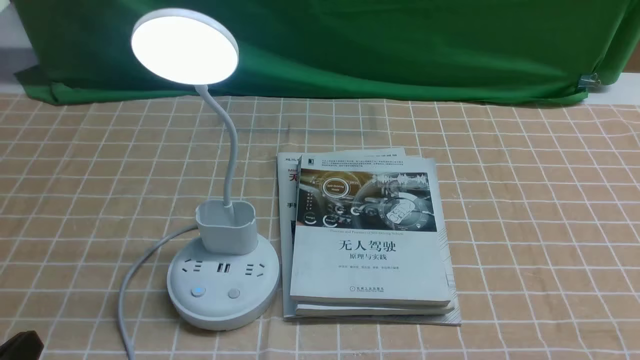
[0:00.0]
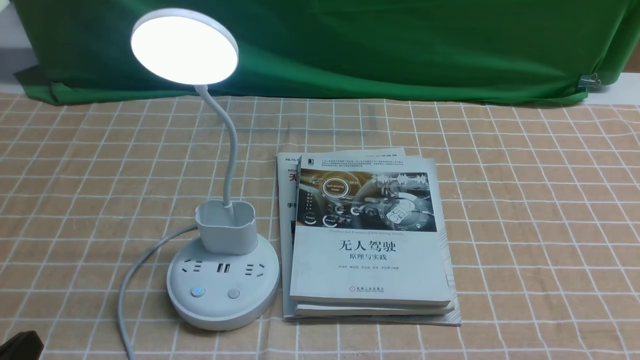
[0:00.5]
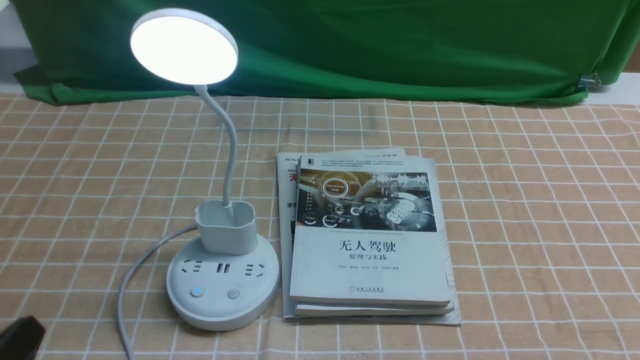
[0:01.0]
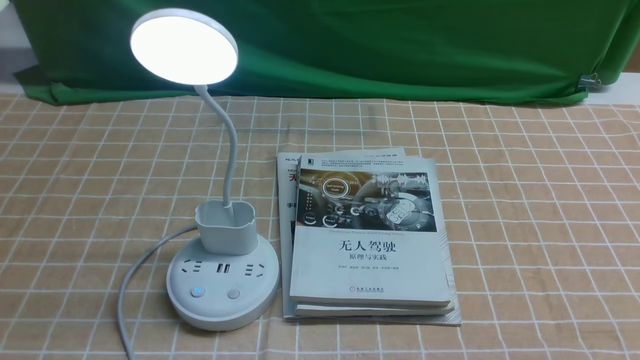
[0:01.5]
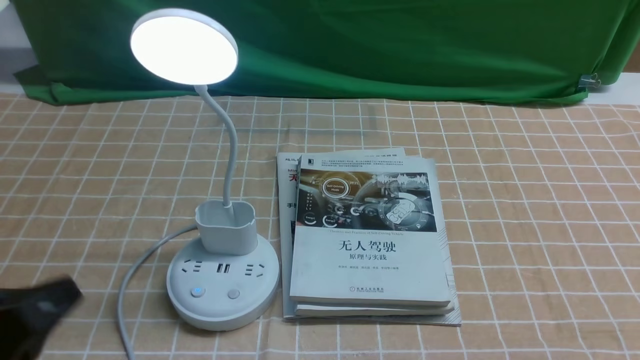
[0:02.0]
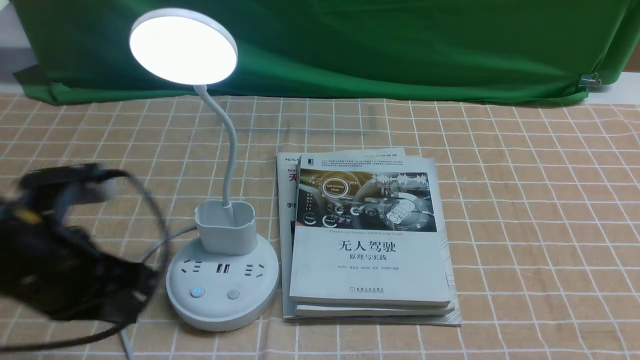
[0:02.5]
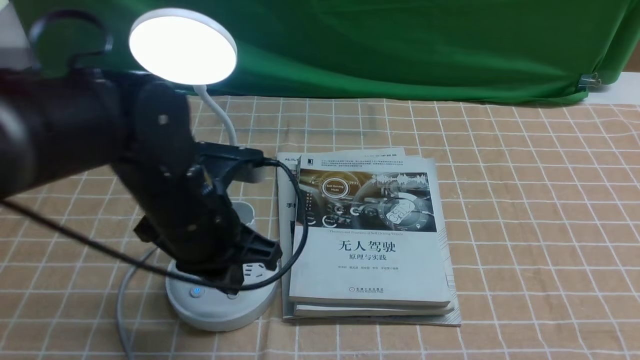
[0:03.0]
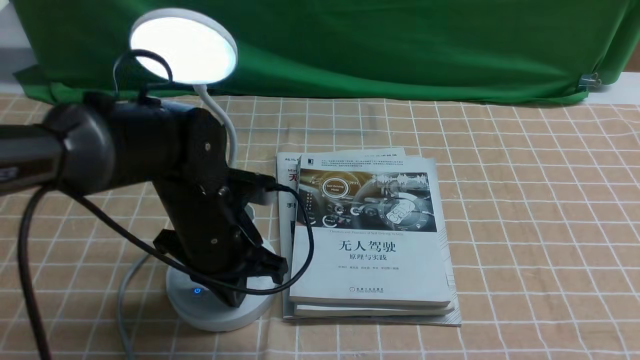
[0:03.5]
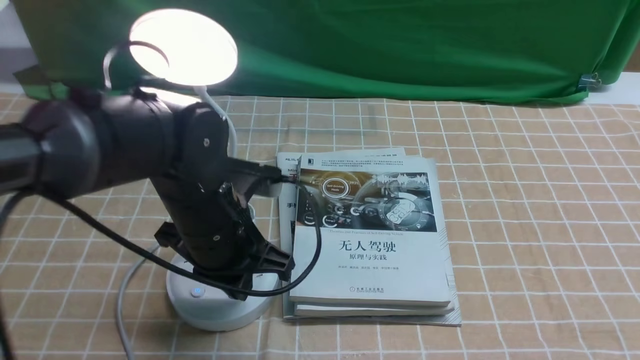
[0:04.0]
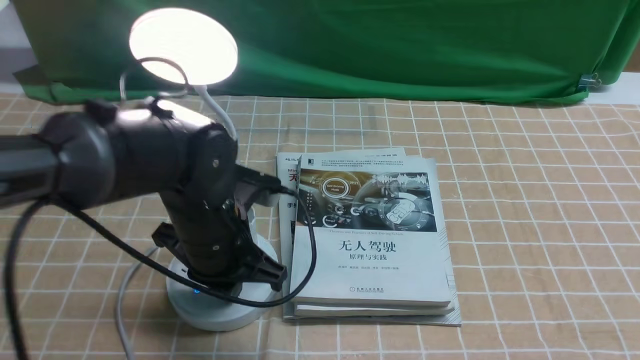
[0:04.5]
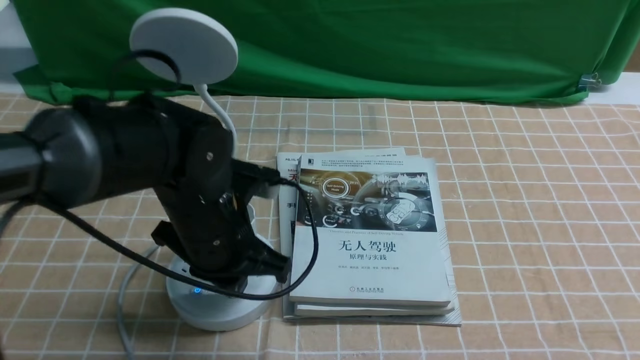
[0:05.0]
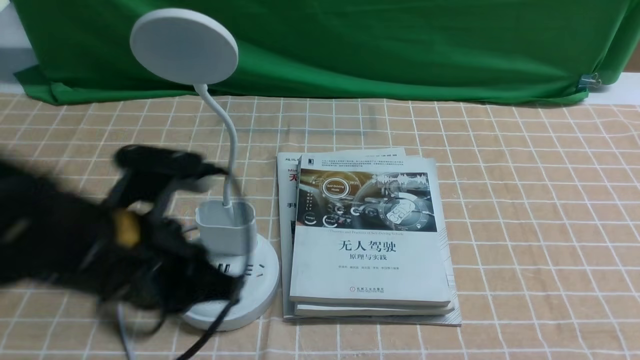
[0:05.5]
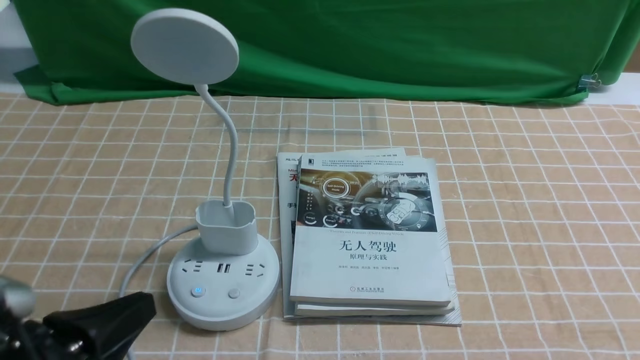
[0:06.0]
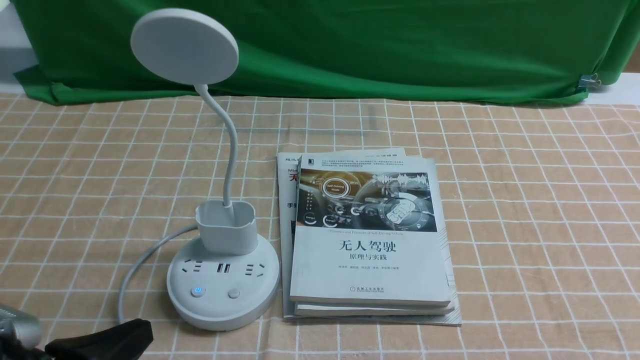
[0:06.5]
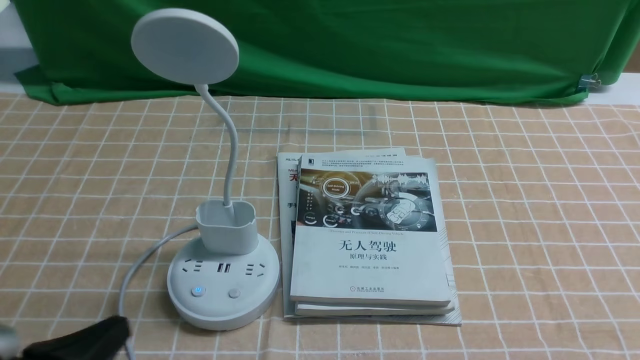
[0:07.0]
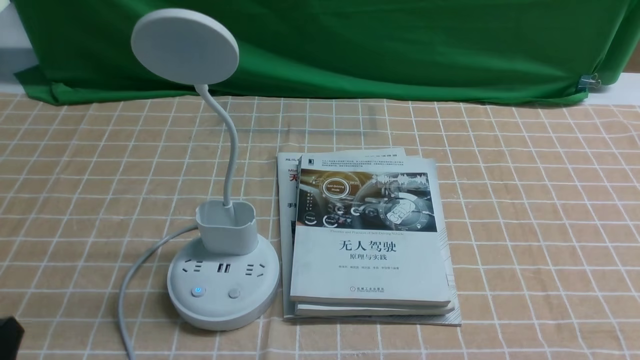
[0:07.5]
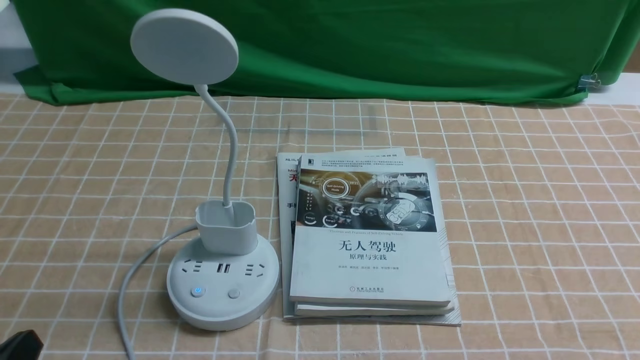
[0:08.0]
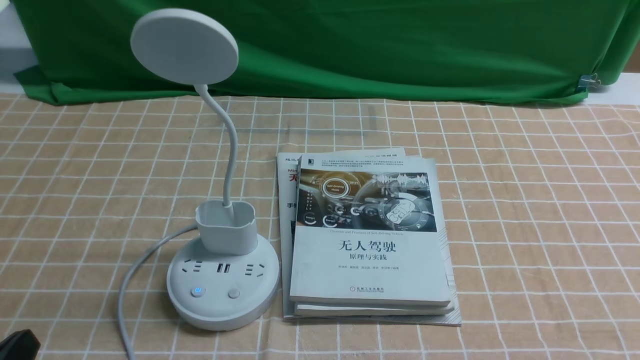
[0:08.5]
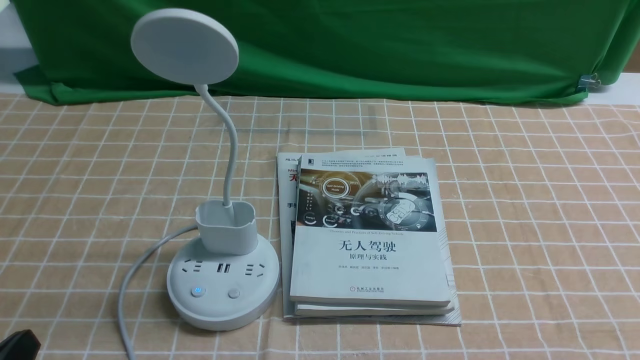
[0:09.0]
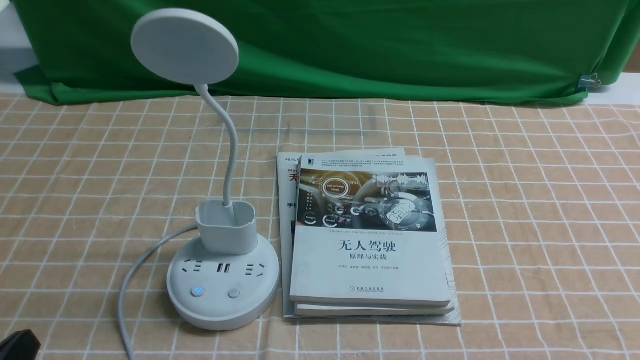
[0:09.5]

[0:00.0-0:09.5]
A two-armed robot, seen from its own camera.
Task of the whole recording: turn off the desk lamp on the light coffee tablecloth by hand.
Step, 0:00.0 to 0:05.0: use the left arm to press the button switch on the lamp holder.
0:02.0 to 0:04.0: The left gripper is displaced forward and to the right by about 25 cm, and closes its fingers.
0:04.0 to 0:05.5: The left gripper is displaced backward and upward by about 10 cm.
0:05.5 to 0:07.5: The left gripper heads backward, to the left and downward, covering about 20 cm.
0:07.5 to 0:09.5: Both grippers stay about where they are.

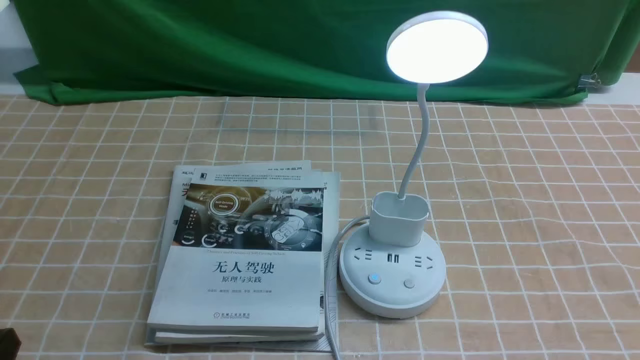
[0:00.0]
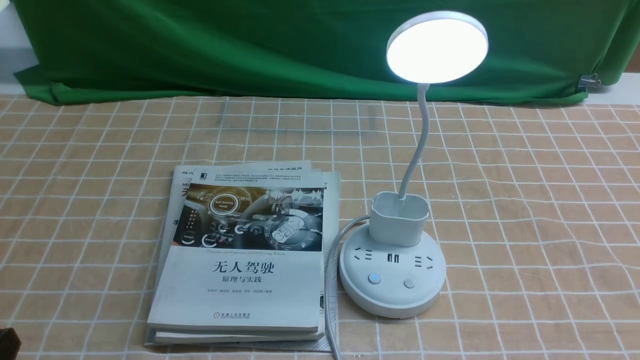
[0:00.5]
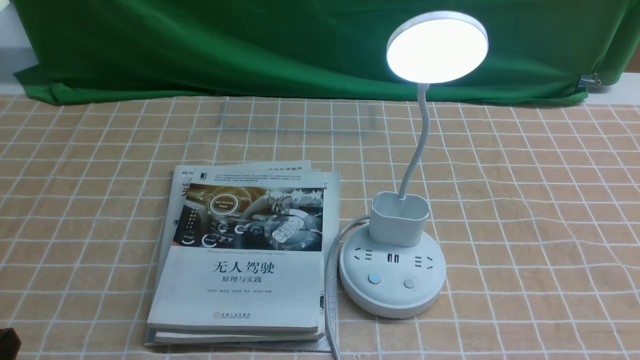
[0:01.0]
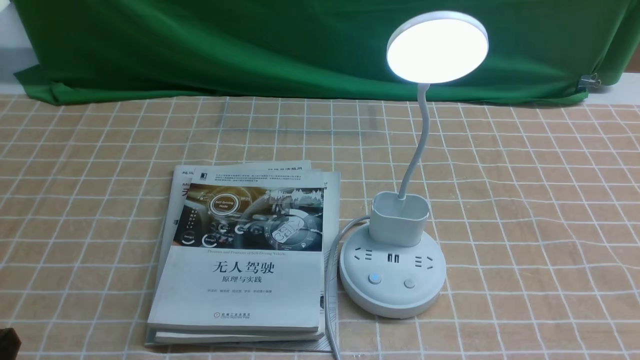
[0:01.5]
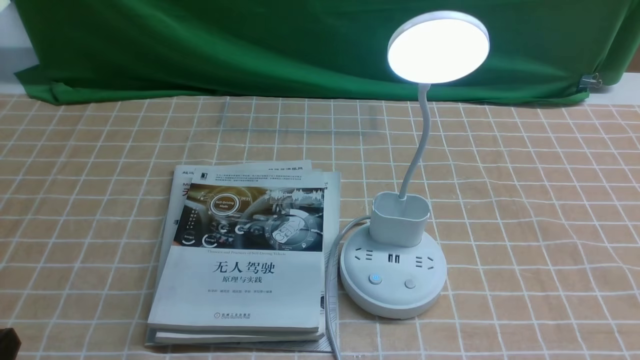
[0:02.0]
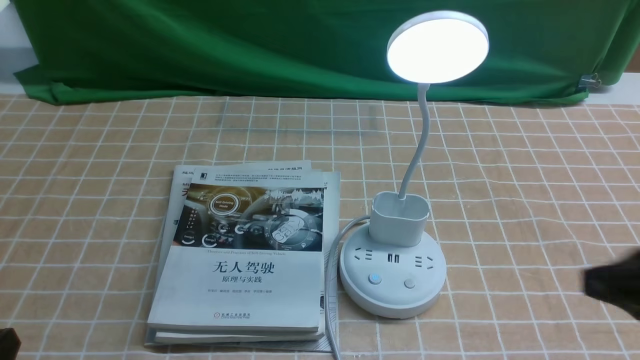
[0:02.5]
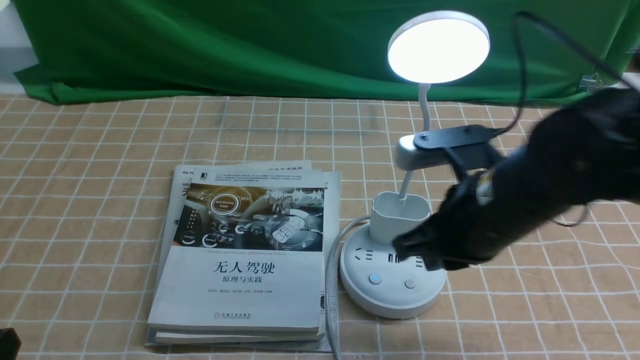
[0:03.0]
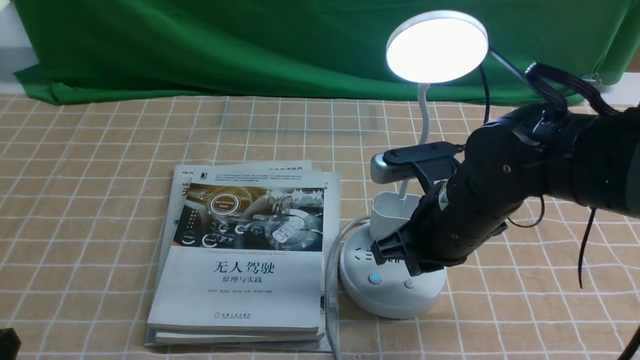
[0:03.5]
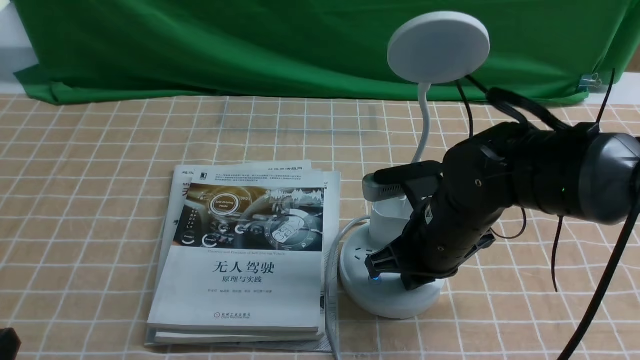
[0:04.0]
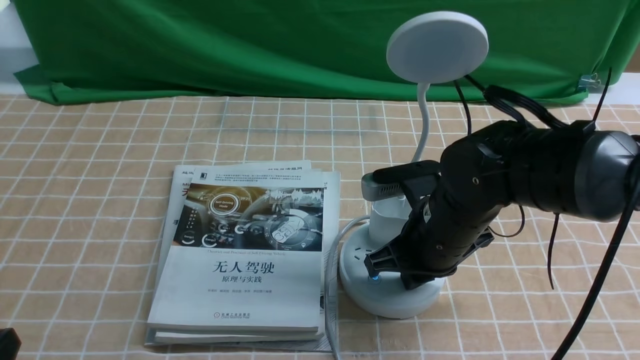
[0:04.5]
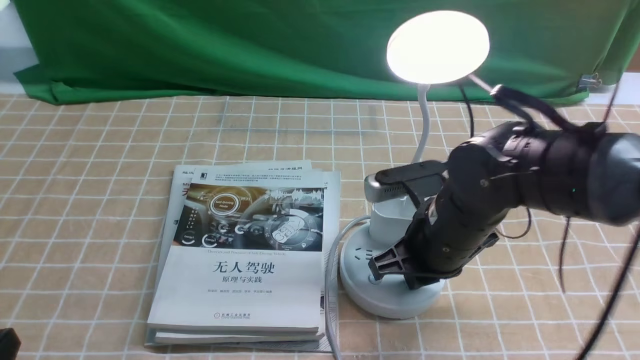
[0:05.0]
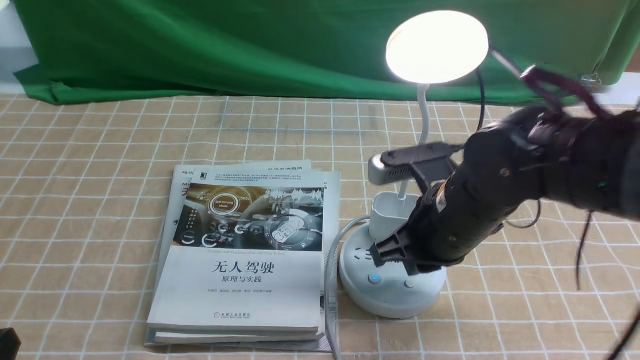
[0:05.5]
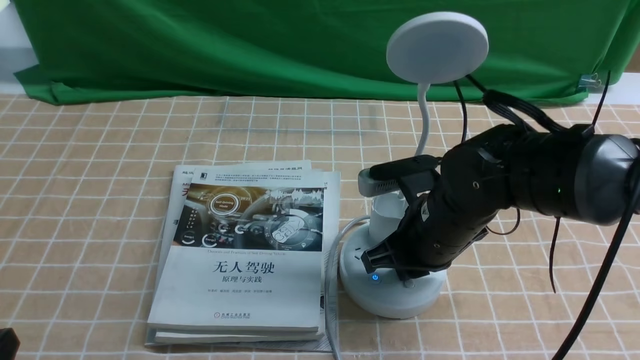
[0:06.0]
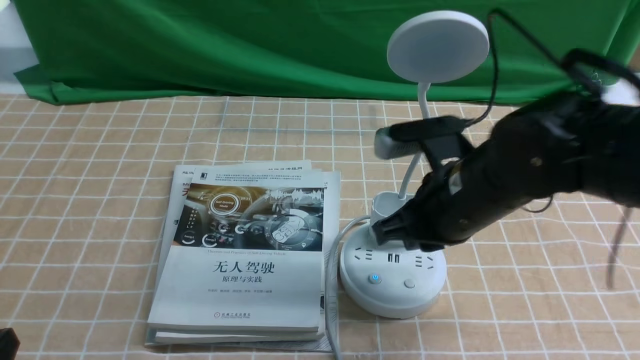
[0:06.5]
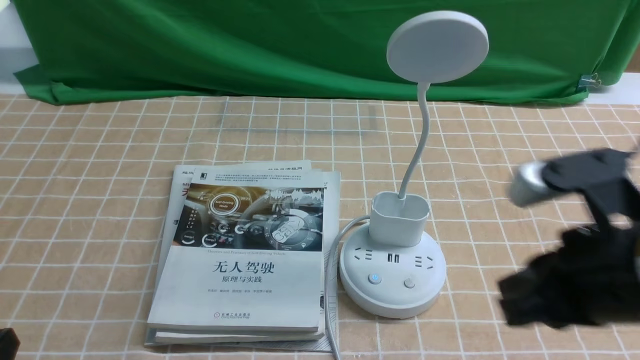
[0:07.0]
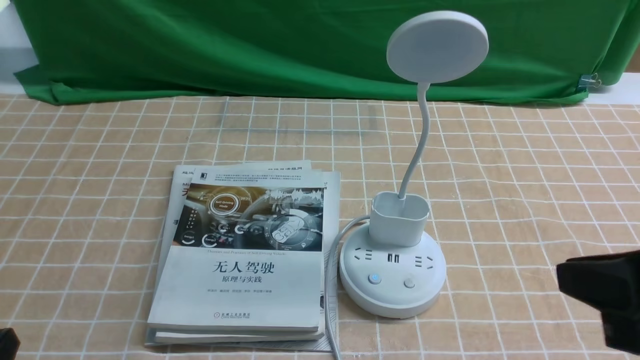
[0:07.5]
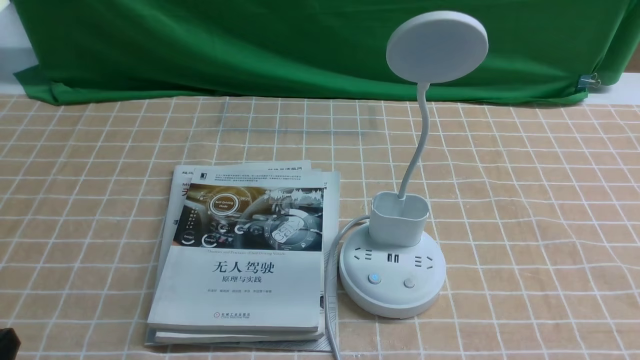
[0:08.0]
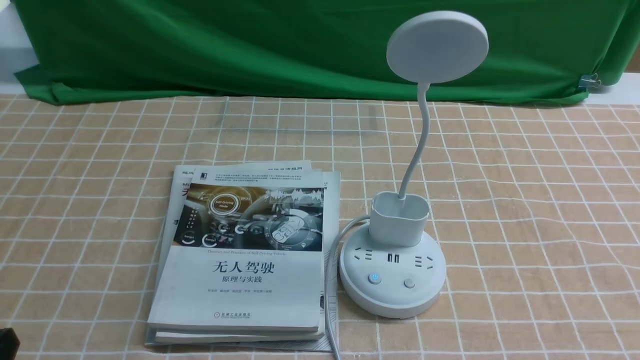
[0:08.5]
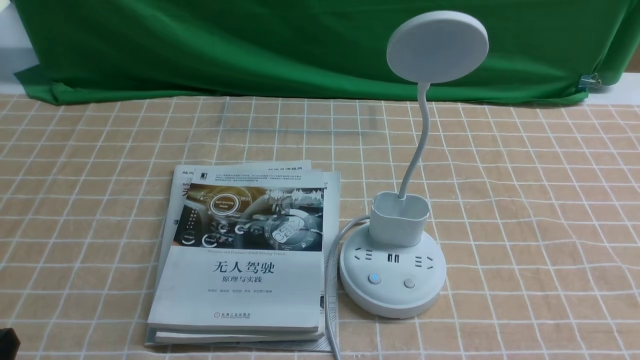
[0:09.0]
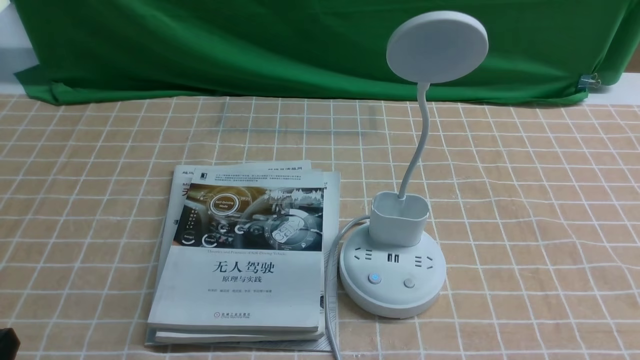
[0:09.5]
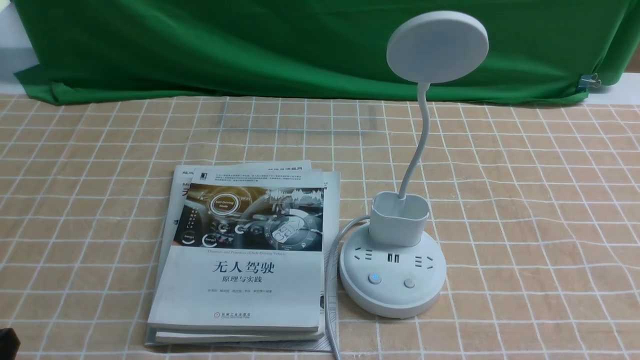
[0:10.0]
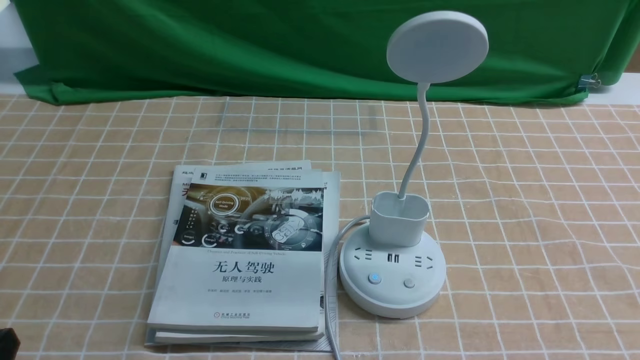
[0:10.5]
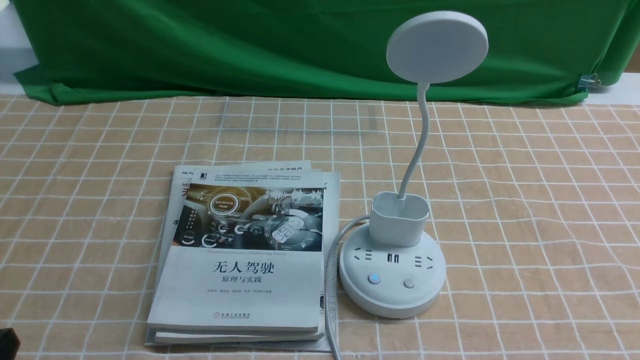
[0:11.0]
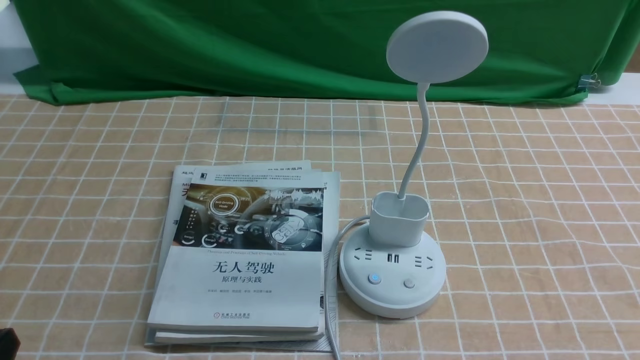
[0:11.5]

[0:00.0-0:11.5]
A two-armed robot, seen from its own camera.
Task of the whole recording: turn off the desk lamp on the light coffee tablecloth by hand.
Step, 0:00.0 to 0:06.0: use the right arm to press the button switch on the lamp holder.
0:02.0 to 0:04.0: The right gripper heads forward and to the left, covering roughly 30 cm, and closes up.
0:04.0 to 0:06.0: The grippers stay close to where they were, moving slightly.
0:06.0 to 0:07.5: The right gripper travels backward, upward and to the right by roughly 25 cm.
0:07.5 to 0:09.5: The right gripper is displaced downward, to the right and backward by some 15 cm.
